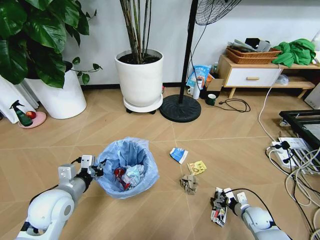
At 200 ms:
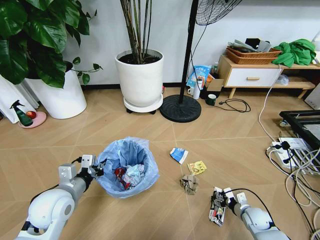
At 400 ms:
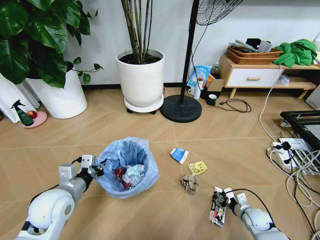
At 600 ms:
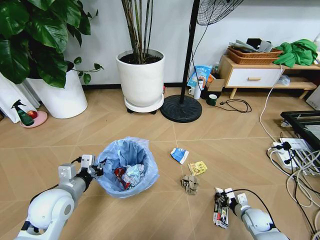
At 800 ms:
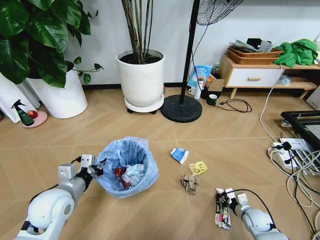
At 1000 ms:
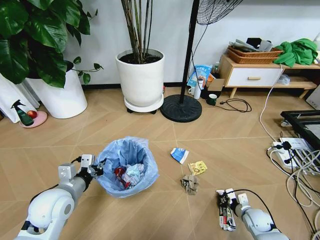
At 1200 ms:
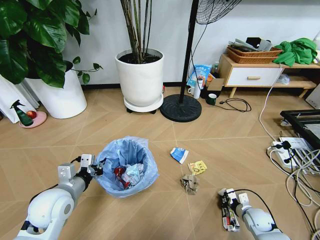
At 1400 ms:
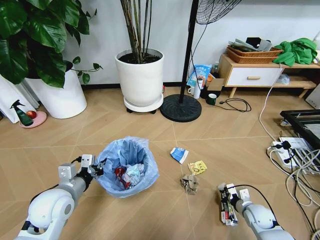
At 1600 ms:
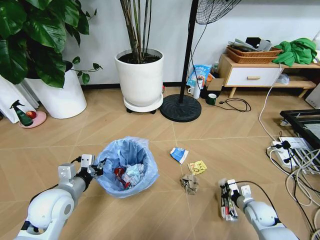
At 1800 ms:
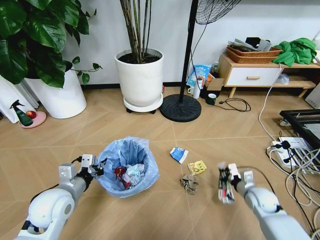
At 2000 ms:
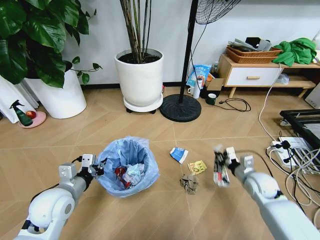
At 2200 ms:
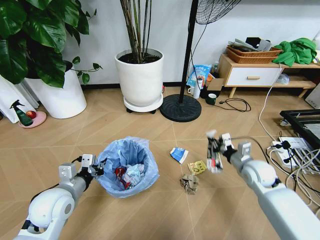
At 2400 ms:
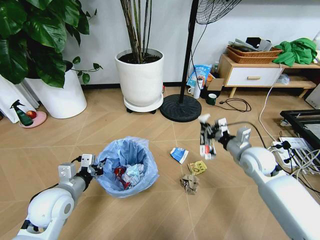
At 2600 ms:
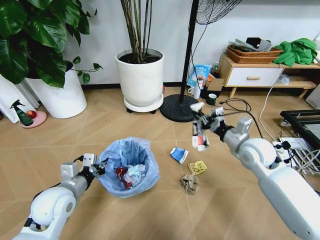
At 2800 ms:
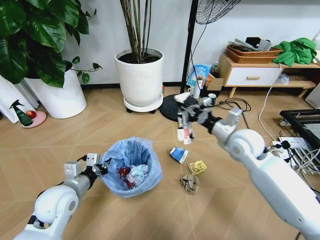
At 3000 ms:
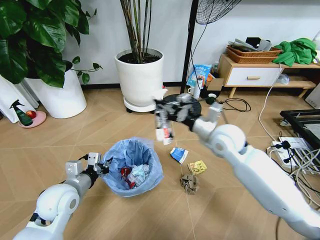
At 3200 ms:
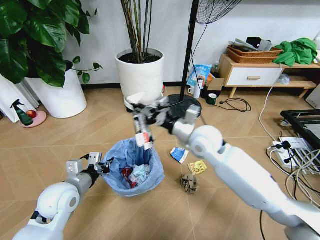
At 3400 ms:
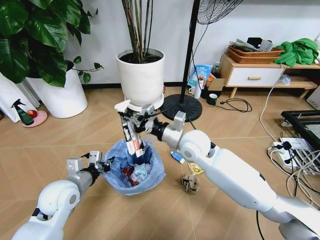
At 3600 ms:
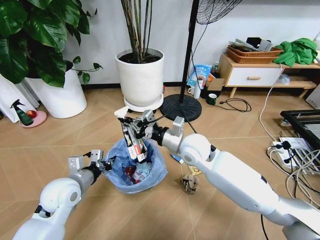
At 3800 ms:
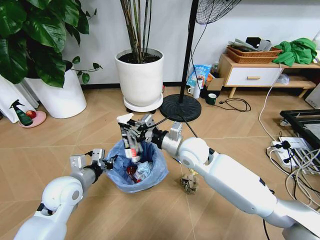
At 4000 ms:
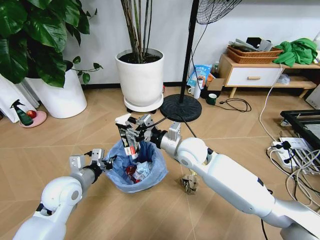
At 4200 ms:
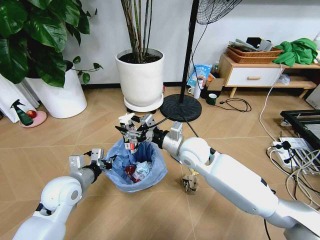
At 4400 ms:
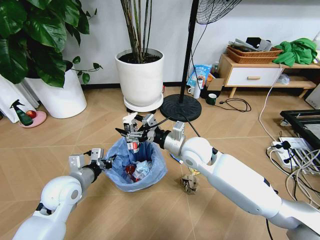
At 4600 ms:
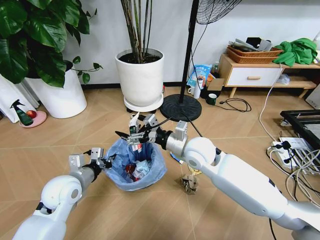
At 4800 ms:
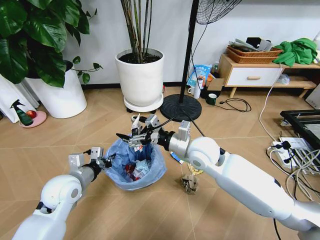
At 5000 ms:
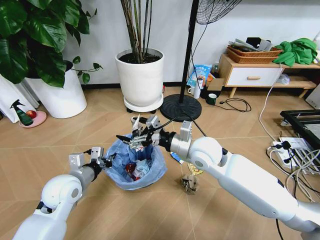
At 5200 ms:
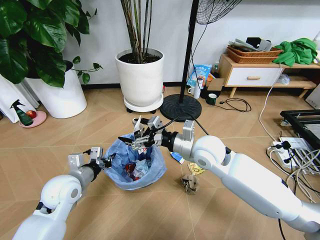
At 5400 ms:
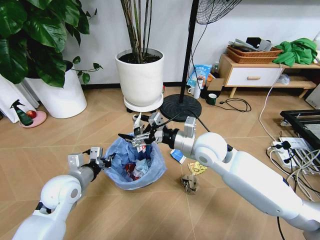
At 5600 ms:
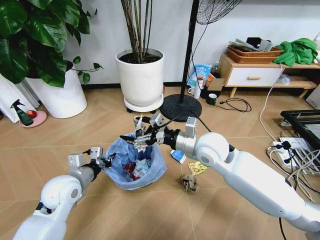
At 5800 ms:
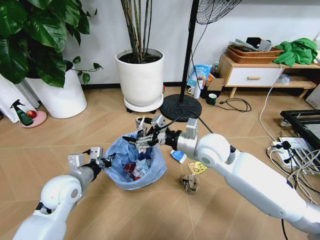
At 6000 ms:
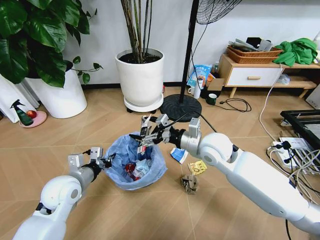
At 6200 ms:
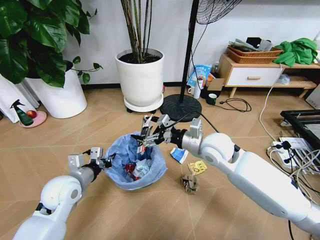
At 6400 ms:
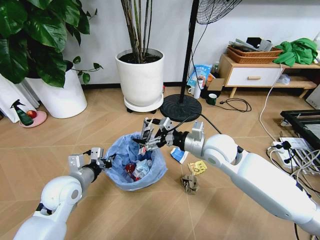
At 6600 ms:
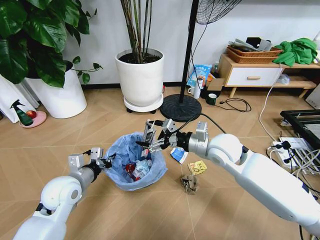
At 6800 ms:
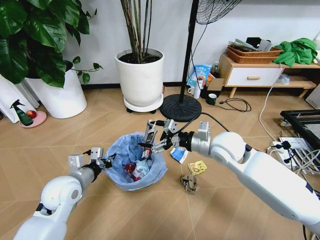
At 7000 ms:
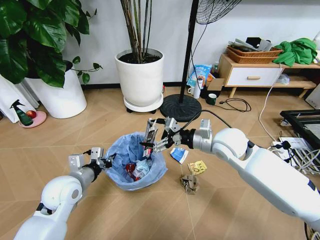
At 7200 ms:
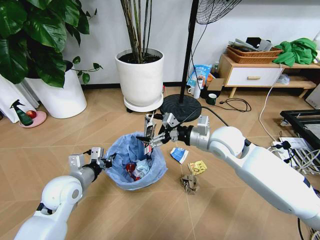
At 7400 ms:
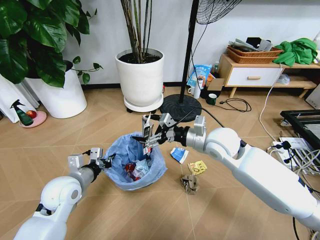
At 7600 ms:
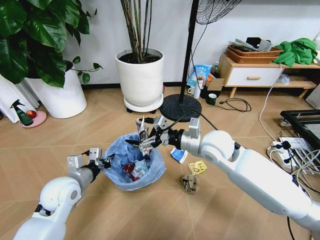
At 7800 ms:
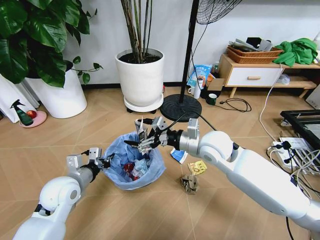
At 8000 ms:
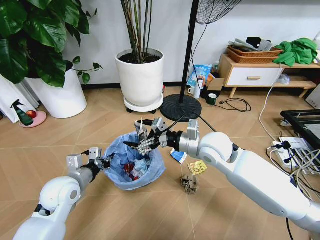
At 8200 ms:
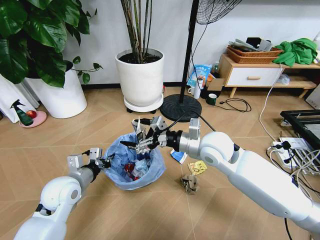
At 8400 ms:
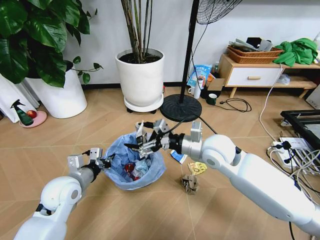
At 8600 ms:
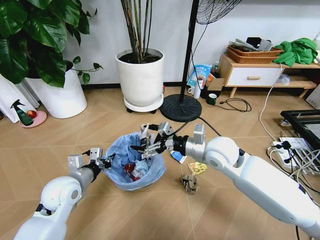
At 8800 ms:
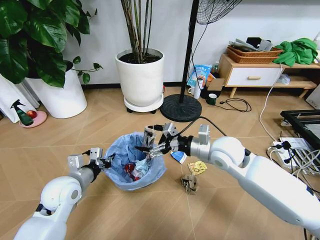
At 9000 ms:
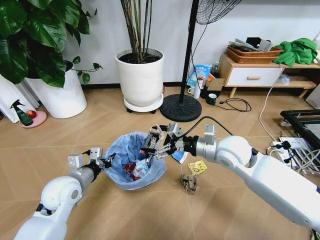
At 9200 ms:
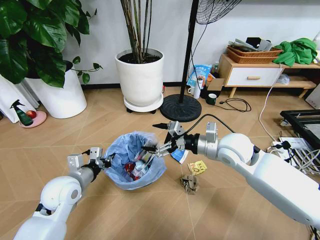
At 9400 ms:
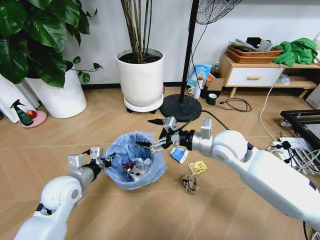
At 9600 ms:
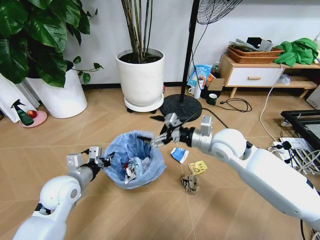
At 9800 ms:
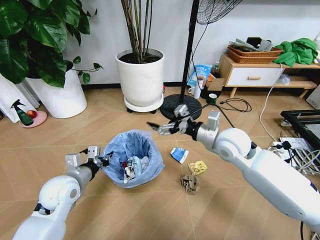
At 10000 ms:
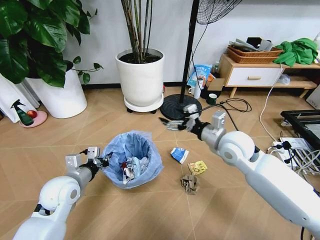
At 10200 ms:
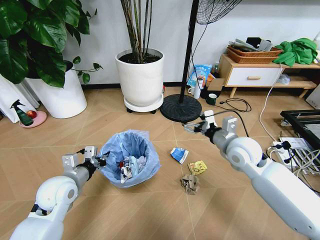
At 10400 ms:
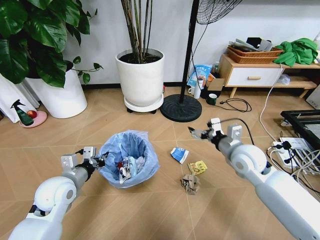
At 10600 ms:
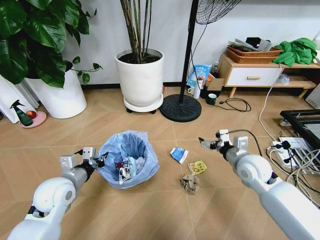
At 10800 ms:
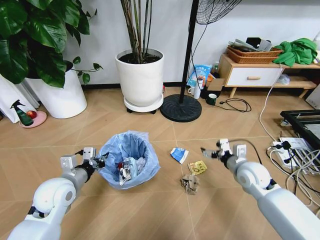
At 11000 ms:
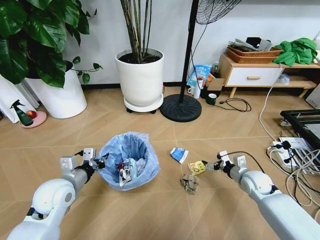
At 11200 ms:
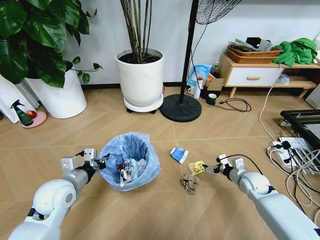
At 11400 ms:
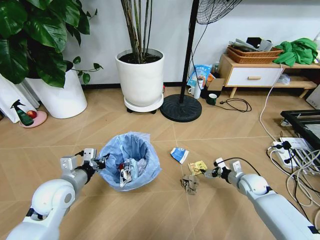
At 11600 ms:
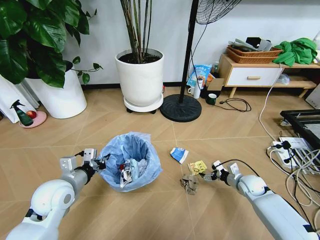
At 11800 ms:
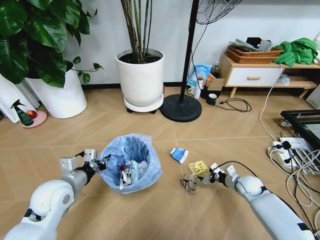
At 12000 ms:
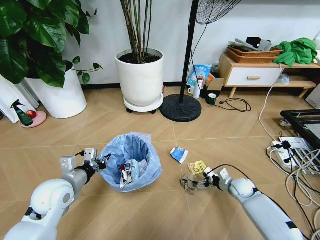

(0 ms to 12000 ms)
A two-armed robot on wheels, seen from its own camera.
Task of the whole recording: Pick up the trash bin and place the garbage on the floor into it.
0 ms - 1600 ms: The right gripper goes approximately 5 cm upward, and closes up.
1600 ms - 3000 ms: The right gripper goes roughly 40 cm upward, to the left and forward.
3000 ms - 4400 ms: The right gripper travels to the left by approximately 10 cm, and opens up.
4400 ms - 6000 ms: The right gripper travels to the right by about 5 cm.
6000 ms - 9000 ms: The grippers stay close to where they were, moving slightly.
9000 ms - 10400 ms: The right gripper goes roughly 5 cm to the right.
10400 ms - 12000 ms: The right gripper is displaced downward by approximately 25 cm.

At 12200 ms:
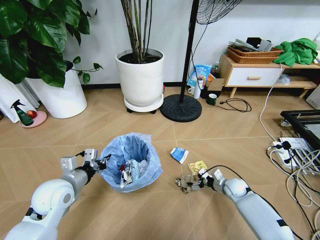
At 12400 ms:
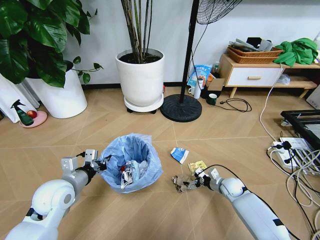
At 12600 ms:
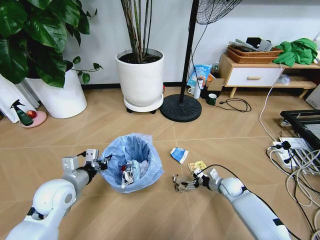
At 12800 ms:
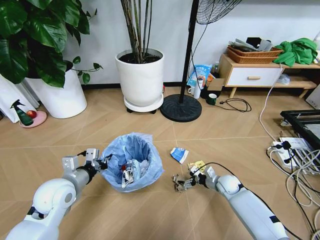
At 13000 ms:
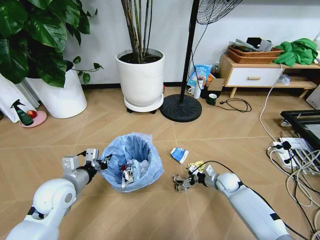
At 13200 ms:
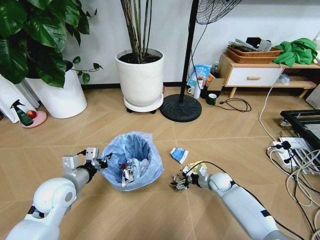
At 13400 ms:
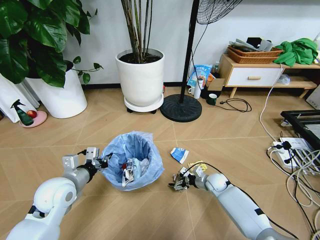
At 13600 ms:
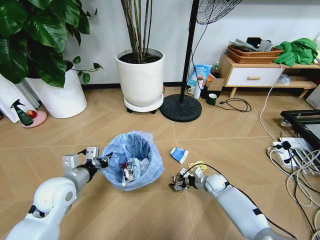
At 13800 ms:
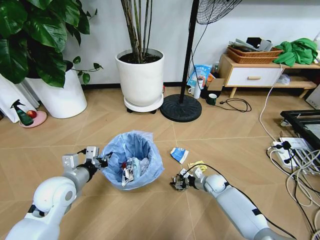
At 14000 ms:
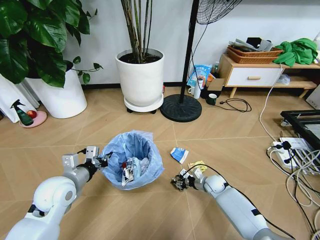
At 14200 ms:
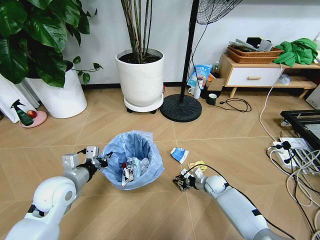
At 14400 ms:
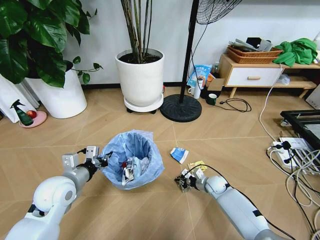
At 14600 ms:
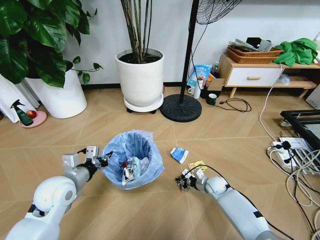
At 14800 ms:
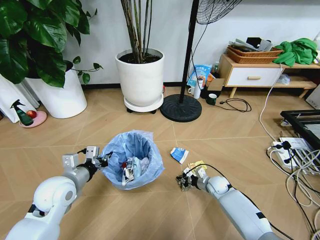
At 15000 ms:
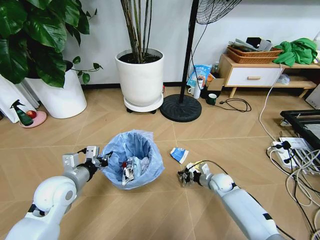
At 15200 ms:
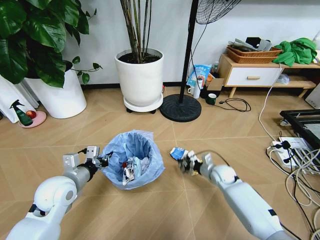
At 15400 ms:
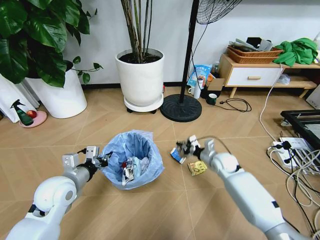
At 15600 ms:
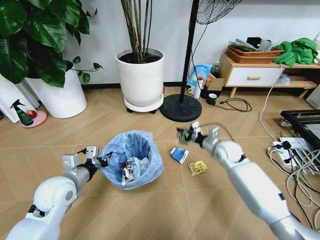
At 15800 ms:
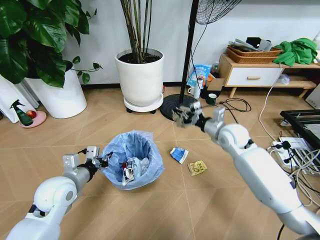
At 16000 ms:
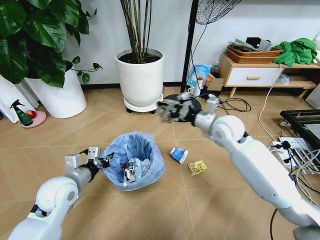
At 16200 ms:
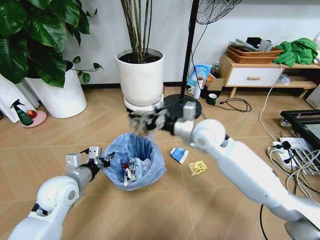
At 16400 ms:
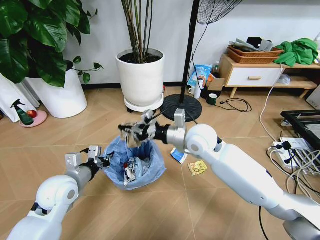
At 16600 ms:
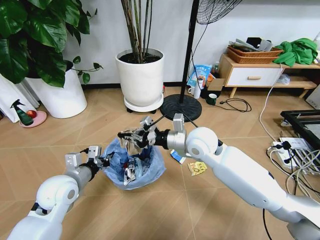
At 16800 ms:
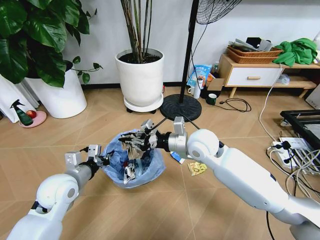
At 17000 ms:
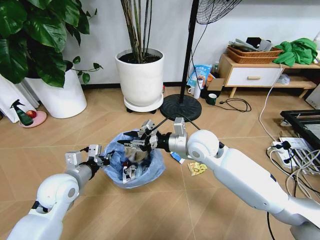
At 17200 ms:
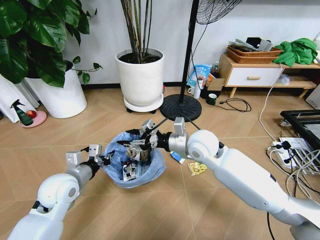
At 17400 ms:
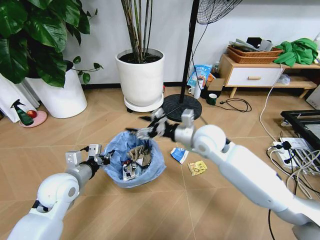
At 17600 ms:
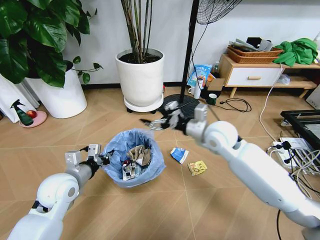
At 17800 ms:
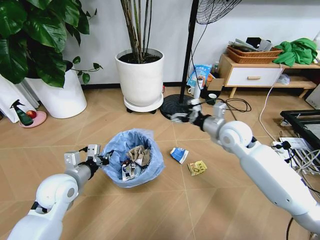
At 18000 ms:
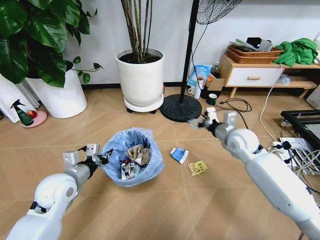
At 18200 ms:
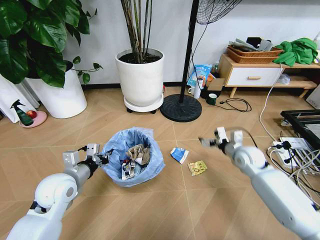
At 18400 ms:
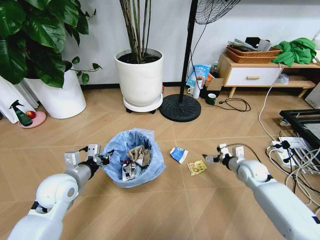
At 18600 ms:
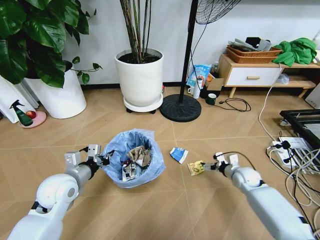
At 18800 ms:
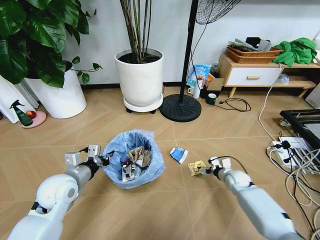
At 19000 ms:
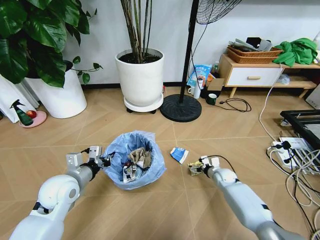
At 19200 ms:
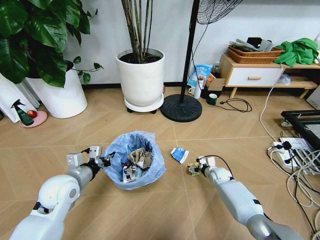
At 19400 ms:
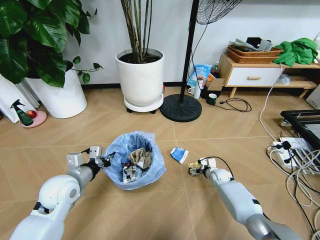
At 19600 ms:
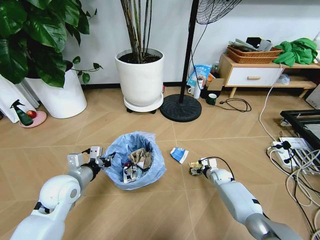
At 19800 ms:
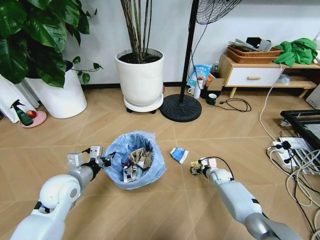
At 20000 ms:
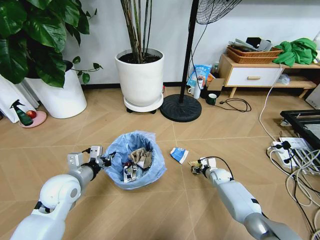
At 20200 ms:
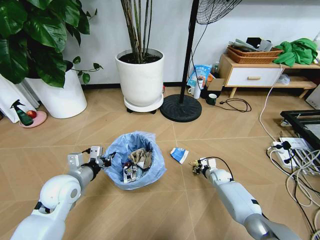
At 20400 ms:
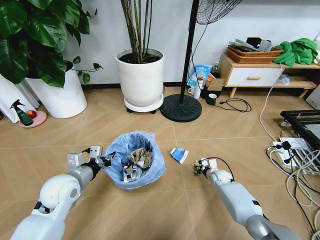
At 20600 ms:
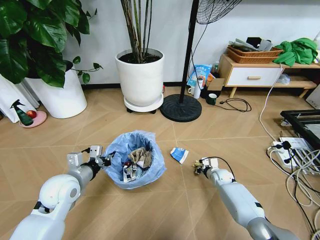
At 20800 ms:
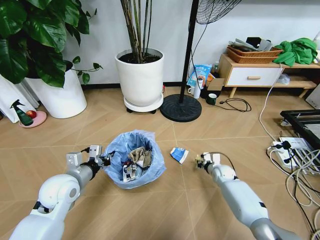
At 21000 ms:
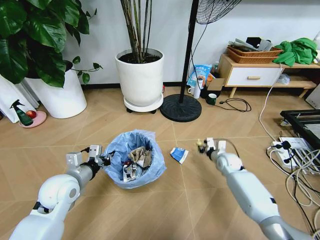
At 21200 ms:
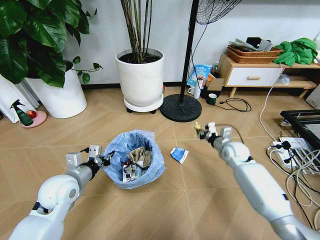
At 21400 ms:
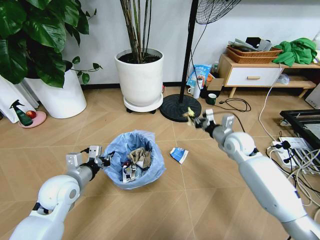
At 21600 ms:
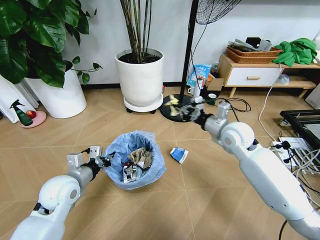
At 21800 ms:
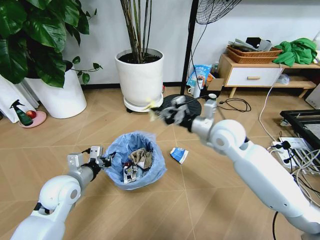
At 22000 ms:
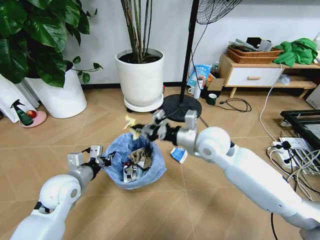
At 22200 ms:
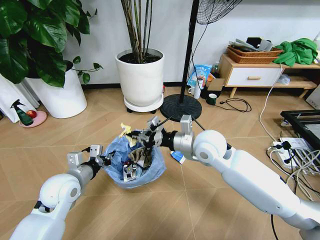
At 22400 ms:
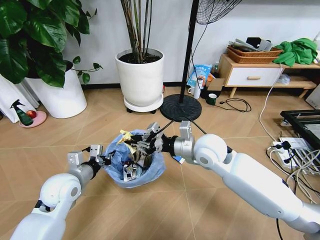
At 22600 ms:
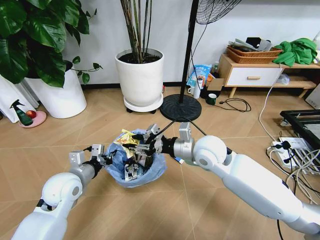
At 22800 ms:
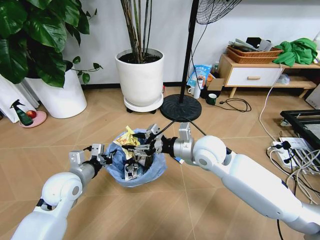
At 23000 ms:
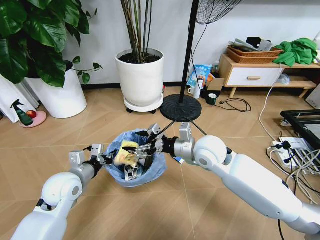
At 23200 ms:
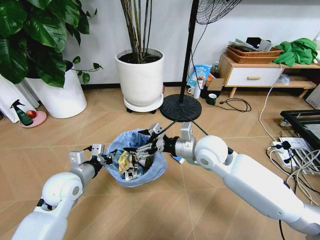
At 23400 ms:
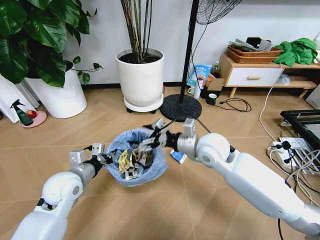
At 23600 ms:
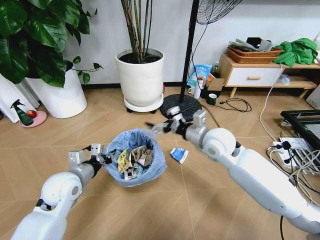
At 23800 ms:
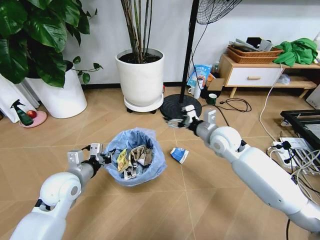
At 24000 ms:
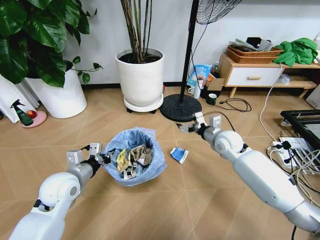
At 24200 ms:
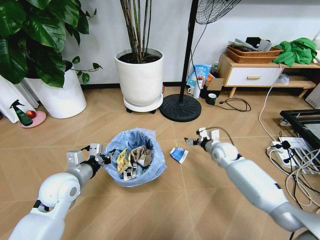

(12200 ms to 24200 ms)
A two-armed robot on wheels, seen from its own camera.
Task of the whole recording: Pick up the trash bin and place the garbage on the floor into it.
12200 ms - 13800 ms: The right gripper heads to the left, covering about 10 cm.
13800 ms - 15200 ms: The right gripper heads upward, covering approximately 5 cm, and closes.
15200 ms - 16600 ms: The right gripper heads upward and to the left, covering roughly 30 cm.
16600 ms - 18200 ms: The right gripper heads to the right and downward, covering some 25 cm, and opens.
18200 ms - 19800 ms: The right gripper is displaced downward by about 20 cm.
19800 ms - 21200 ms: The right gripper travels upward by approximately 20 cm, and closes its fingers.
21200 ms - 22600 ms: The right gripper heads to the left, upward and backward, covering approximately 25 cm, and opens.
22600 ms - 24200 ms: The right gripper is displaced downward, to the right and forward by approximately 20 cm, and opens.
